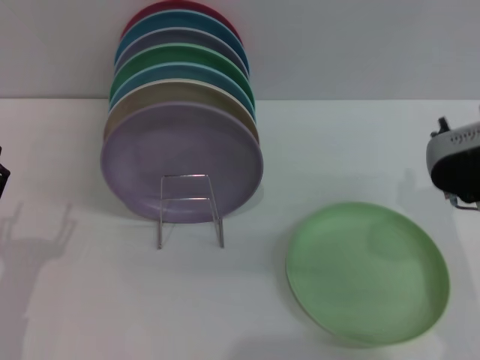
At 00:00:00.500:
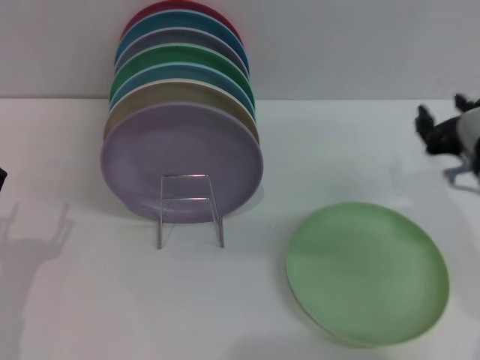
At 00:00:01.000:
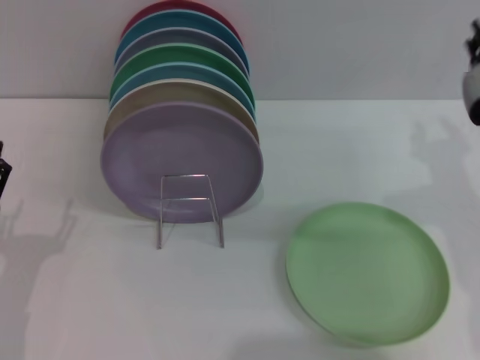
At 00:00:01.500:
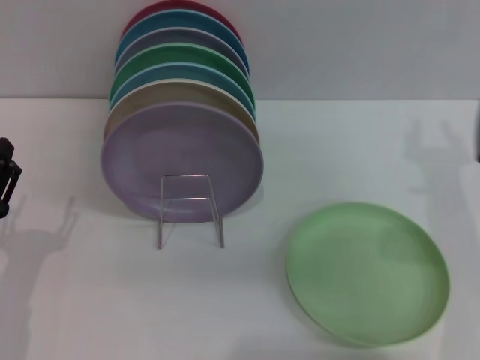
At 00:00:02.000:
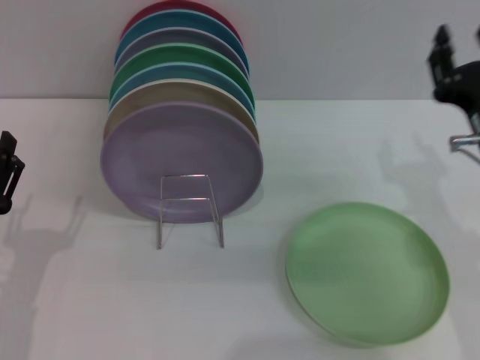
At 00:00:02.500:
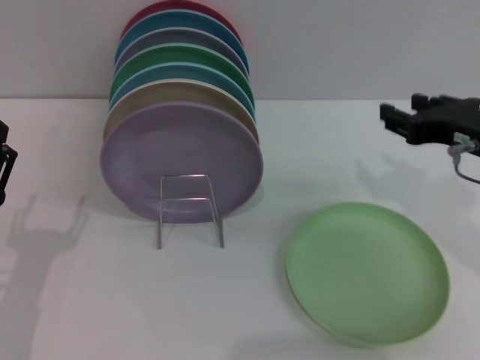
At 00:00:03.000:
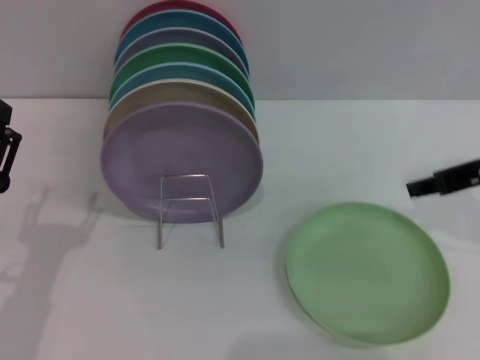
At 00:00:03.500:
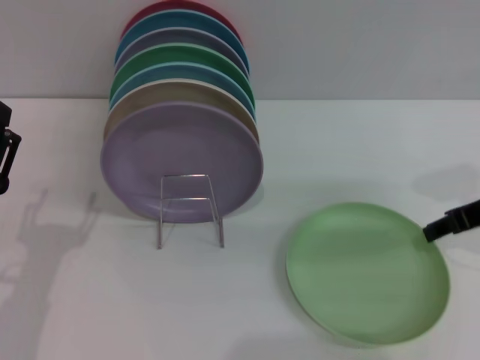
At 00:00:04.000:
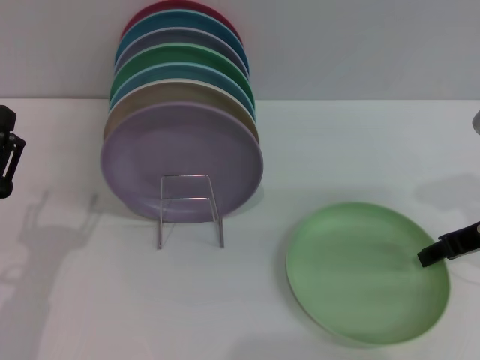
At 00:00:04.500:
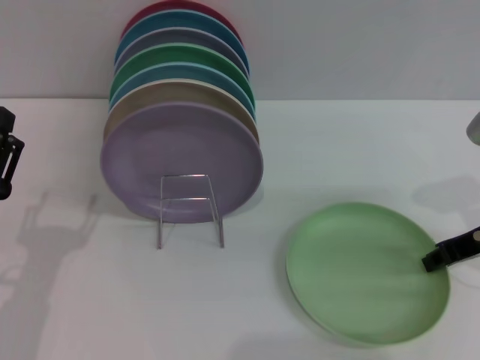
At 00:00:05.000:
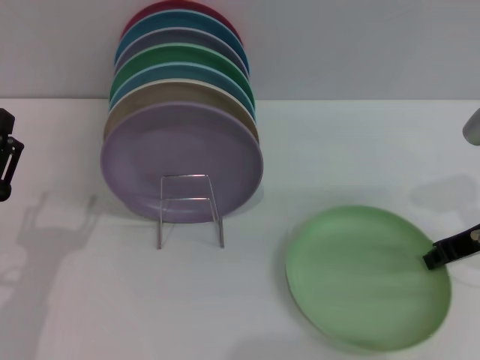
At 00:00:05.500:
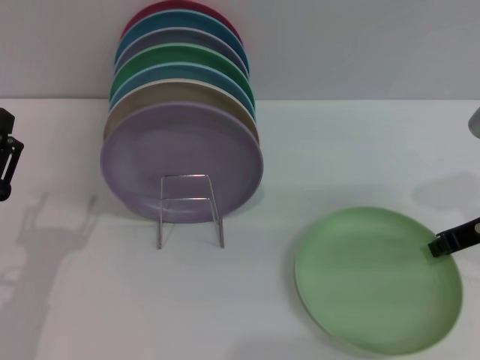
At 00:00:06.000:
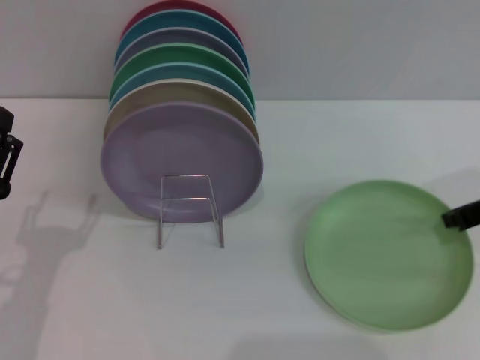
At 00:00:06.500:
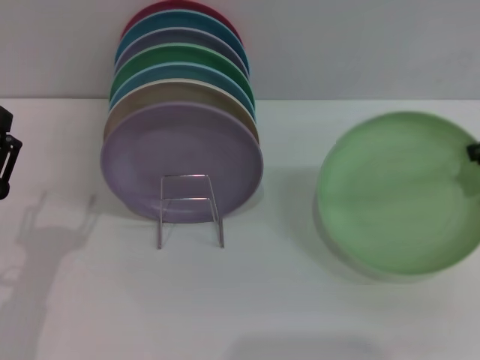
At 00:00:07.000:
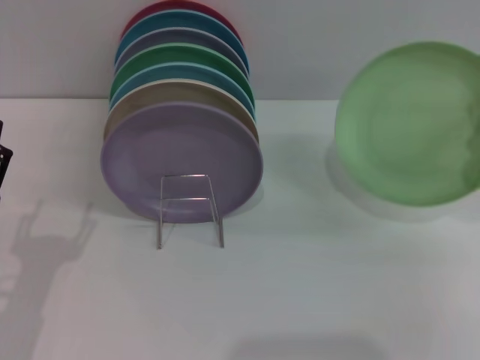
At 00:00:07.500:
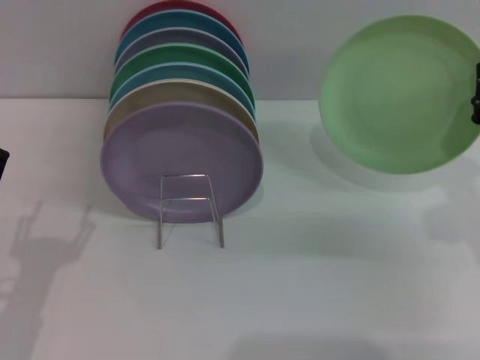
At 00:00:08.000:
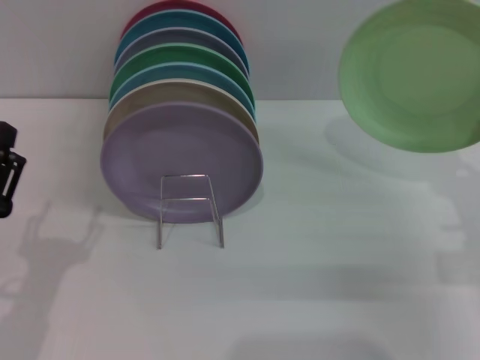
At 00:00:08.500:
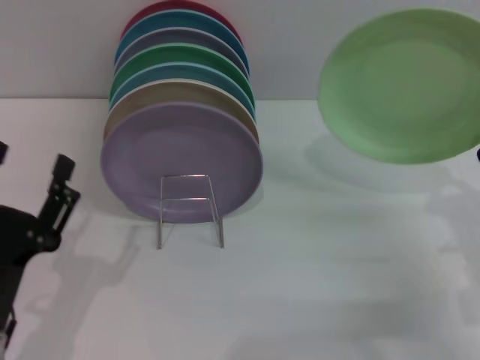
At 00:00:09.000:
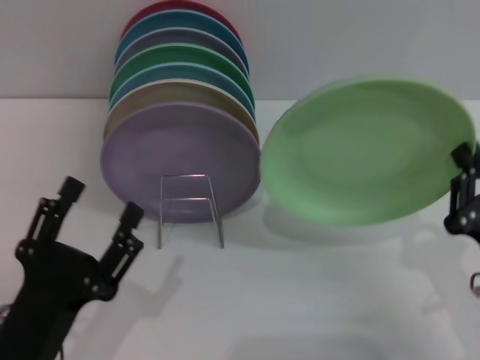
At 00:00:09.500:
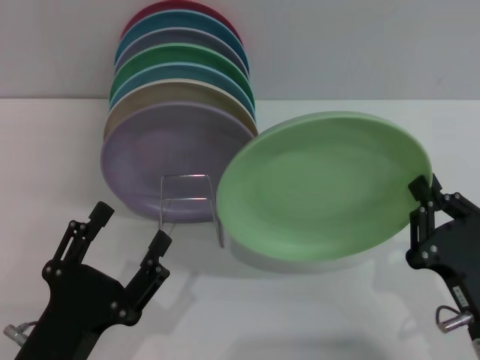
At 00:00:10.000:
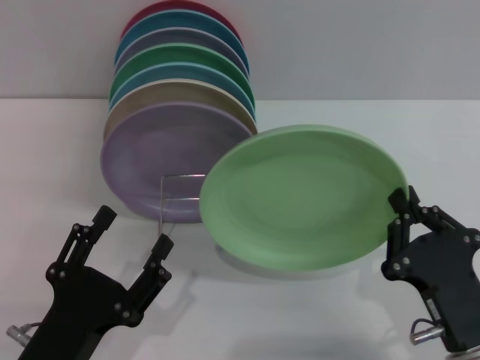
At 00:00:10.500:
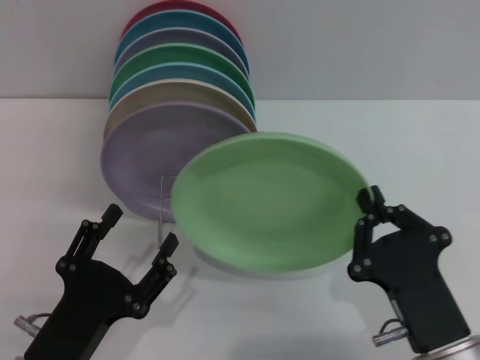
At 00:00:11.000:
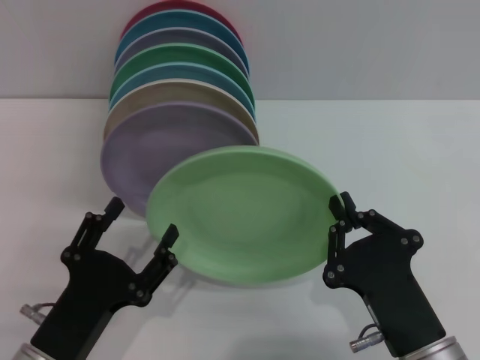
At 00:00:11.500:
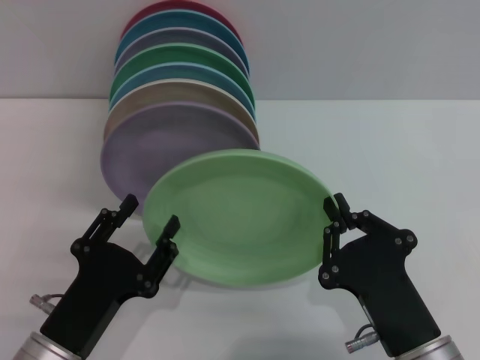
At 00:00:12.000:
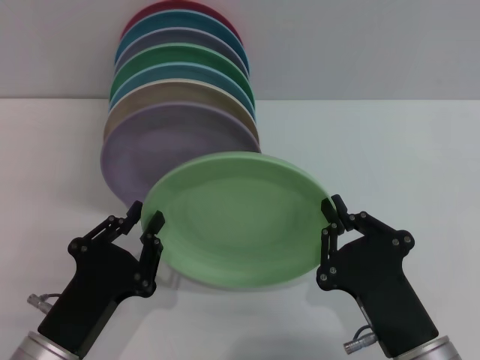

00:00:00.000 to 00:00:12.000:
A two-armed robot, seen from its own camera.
Task of the whole recording: Grip the plate with one hand, pass it to the other, then set it on the shelf.
Step, 00:00:00.000 to 00:00:06.000: Pick up the plate with the right gripper.
00:00:02.000 to 00:00:04.000: The right gripper travels to the right by approximately 5 cm.
00:00:04.000 to 00:00:06.000: The right gripper closes up.
00:00:06.000 to 00:00:08.000: The right gripper is displaced backward and downward by roughly 10 cm.
00:00:08.000 to 00:00:10.000: The right gripper shifts roughly 15 cm backward, to the left and downward. The left gripper is displaced to the right and backward by about 10 cm.
00:00:10.000 to 00:00:12.000: The left gripper closes its fingers.

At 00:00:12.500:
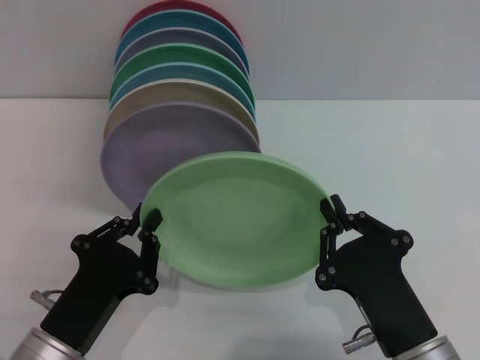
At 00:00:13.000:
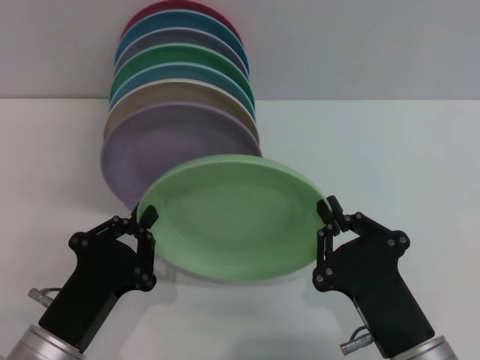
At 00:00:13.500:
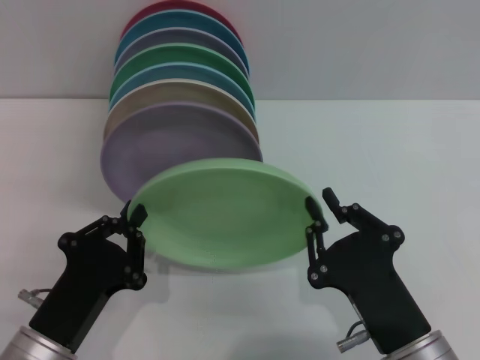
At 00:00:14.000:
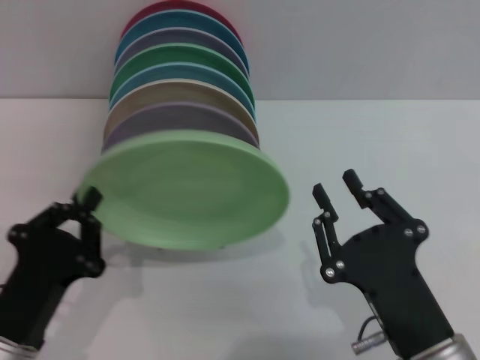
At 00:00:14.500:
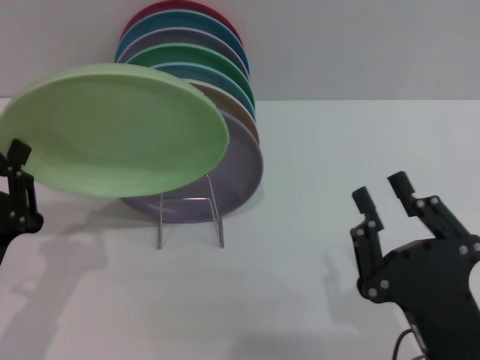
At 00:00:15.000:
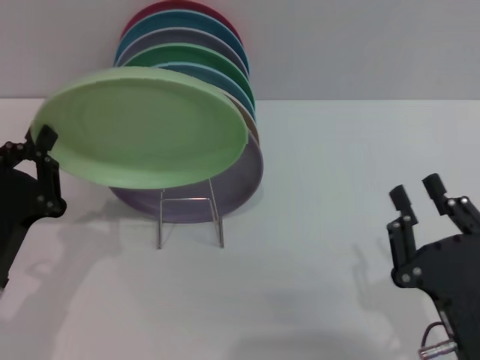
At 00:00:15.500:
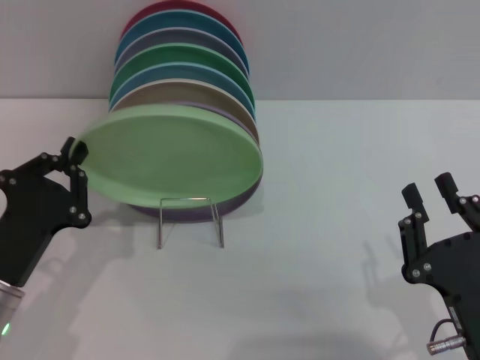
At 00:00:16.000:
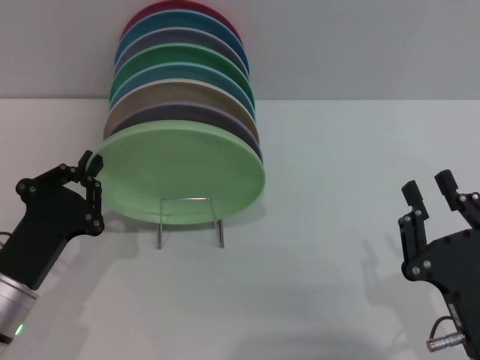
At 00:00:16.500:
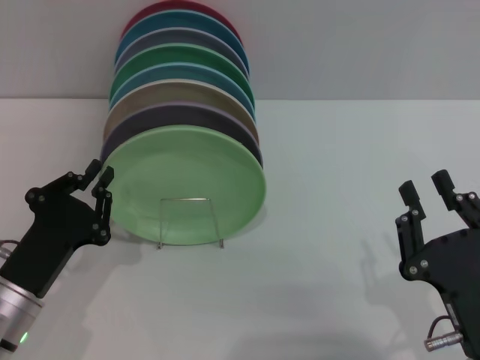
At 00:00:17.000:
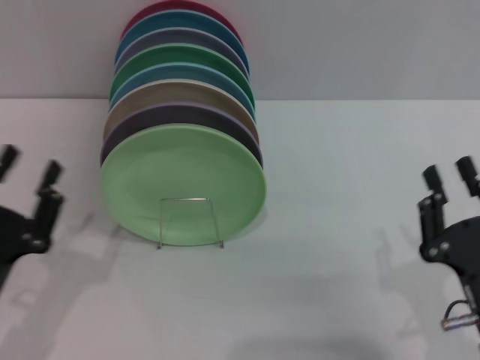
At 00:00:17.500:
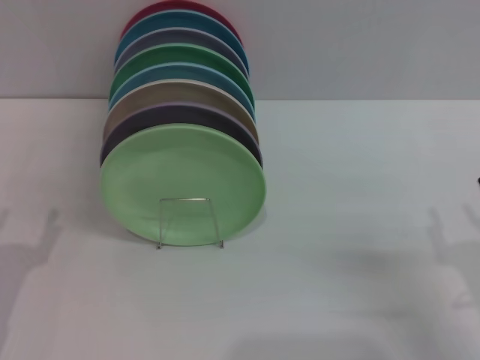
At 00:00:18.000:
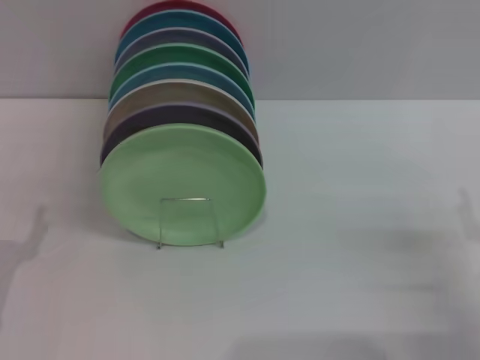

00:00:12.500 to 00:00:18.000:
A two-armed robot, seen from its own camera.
Task of the whole recording: Grip the plate with one hand, pass it to the other, then set it on the shelf.
Step, 00:00:12.500 to 00:00:15.000: Pass the plate from the right gripper to the left gripper.
Step, 00:00:15.500 to 00:00:16.500: Place the plate on the shelf with the left gripper.
00:00:12.500 to 00:00:14.500: The left gripper goes approximately 5 cm to the left; the right gripper opens its fingers.
00:00:16.000 to 00:00:18.000: The left gripper goes some 5 cm to the left, and opens up. Meanwhile the right gripper shifts some 15 cm to the right and forward, and opens up.
